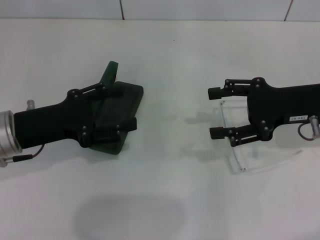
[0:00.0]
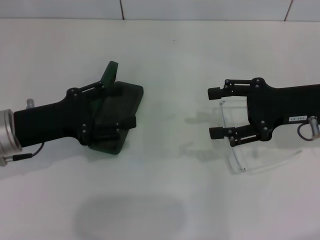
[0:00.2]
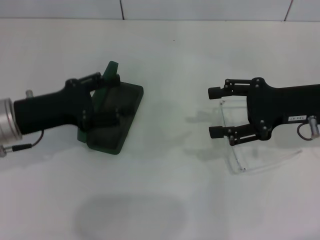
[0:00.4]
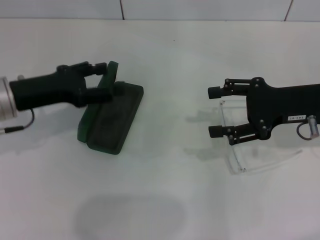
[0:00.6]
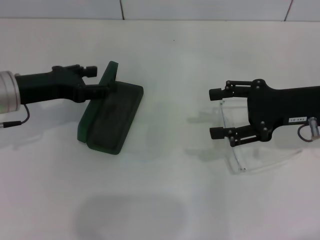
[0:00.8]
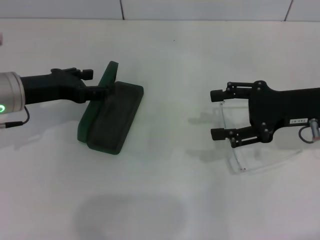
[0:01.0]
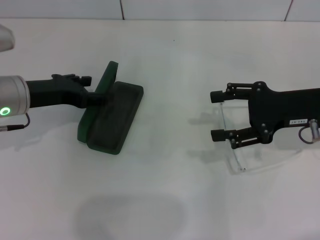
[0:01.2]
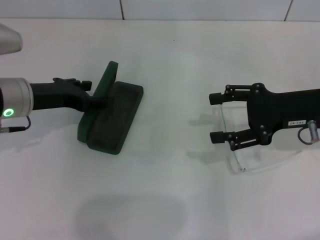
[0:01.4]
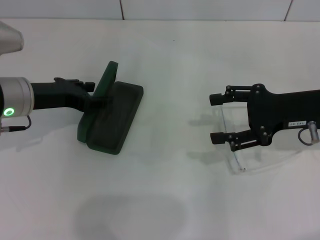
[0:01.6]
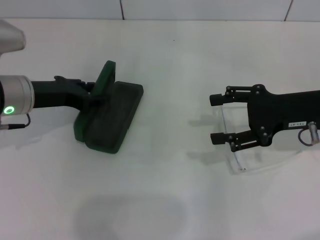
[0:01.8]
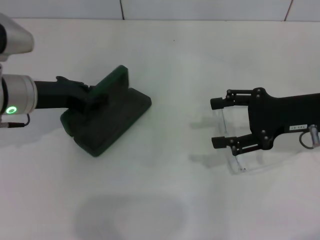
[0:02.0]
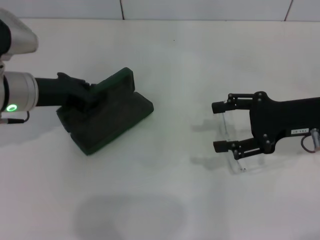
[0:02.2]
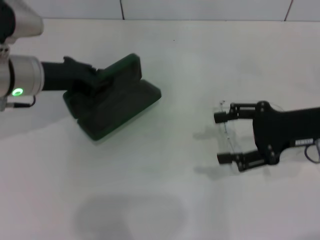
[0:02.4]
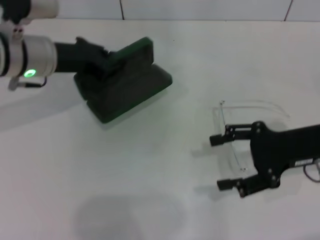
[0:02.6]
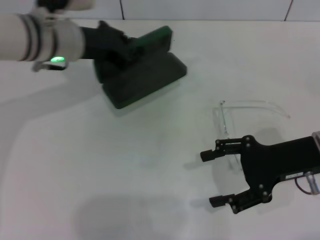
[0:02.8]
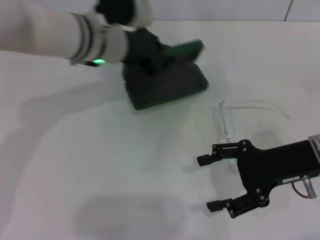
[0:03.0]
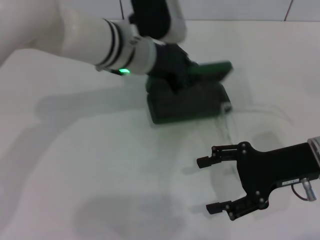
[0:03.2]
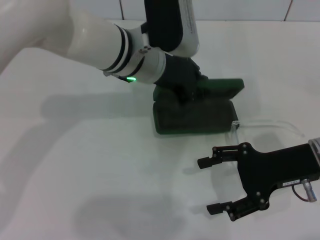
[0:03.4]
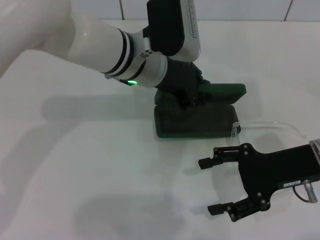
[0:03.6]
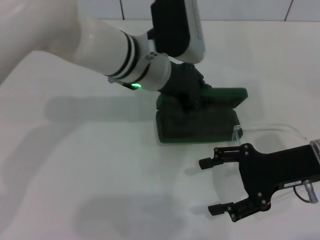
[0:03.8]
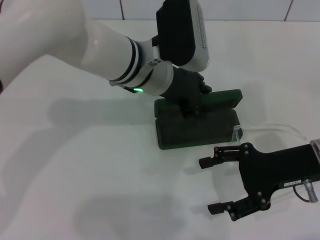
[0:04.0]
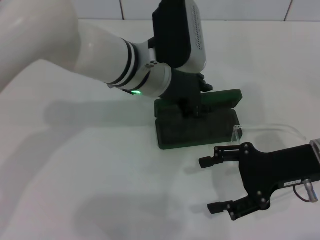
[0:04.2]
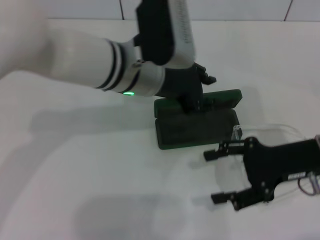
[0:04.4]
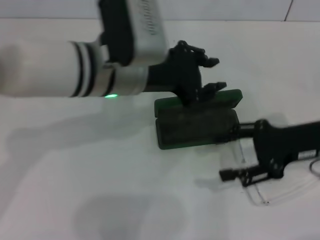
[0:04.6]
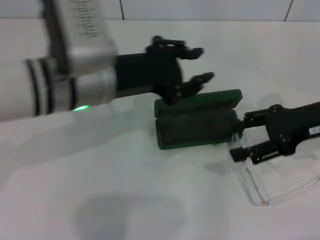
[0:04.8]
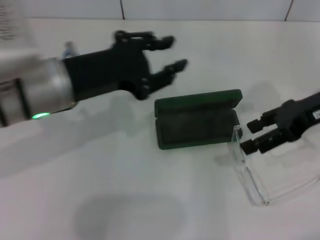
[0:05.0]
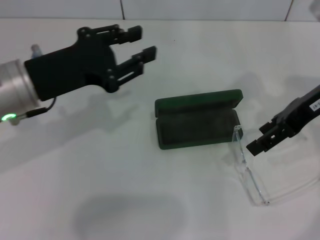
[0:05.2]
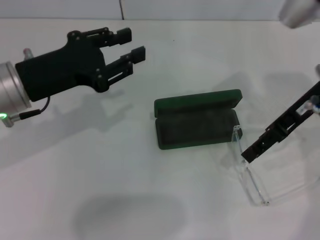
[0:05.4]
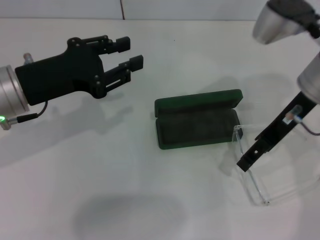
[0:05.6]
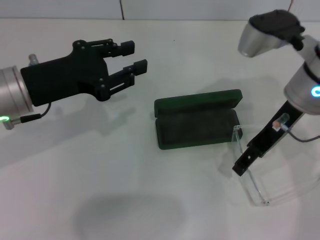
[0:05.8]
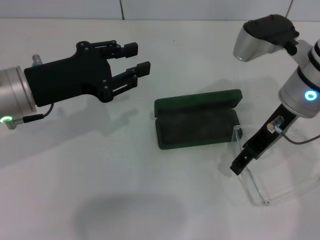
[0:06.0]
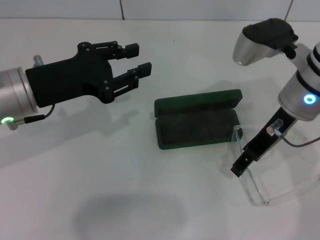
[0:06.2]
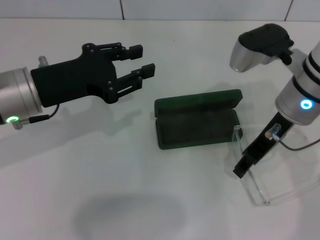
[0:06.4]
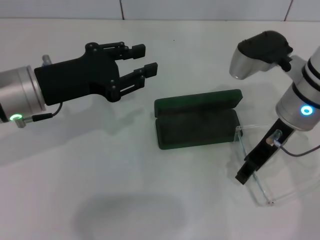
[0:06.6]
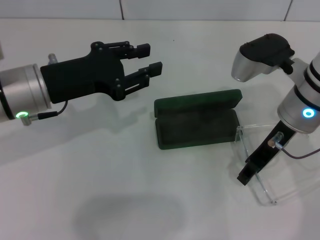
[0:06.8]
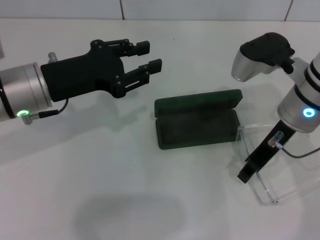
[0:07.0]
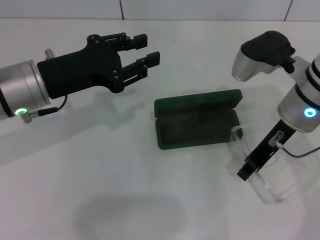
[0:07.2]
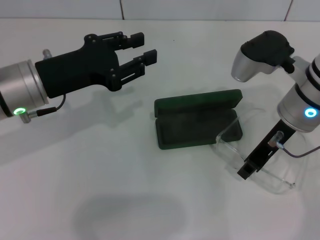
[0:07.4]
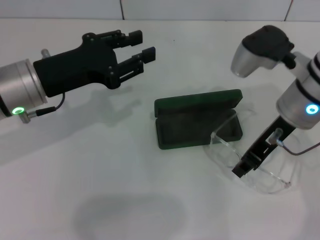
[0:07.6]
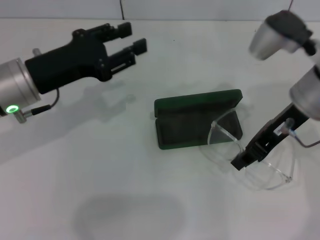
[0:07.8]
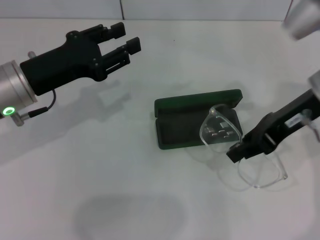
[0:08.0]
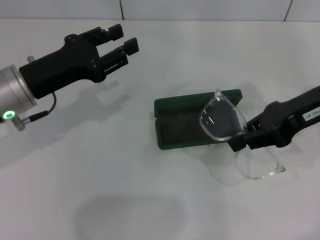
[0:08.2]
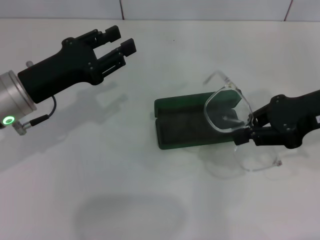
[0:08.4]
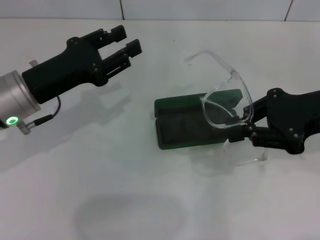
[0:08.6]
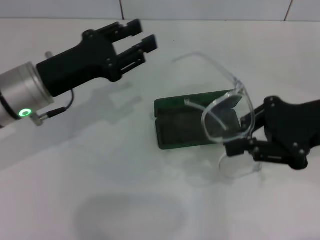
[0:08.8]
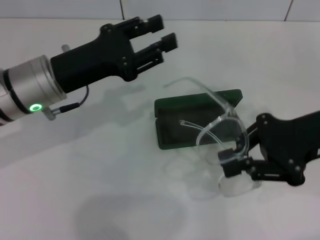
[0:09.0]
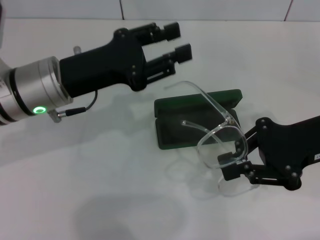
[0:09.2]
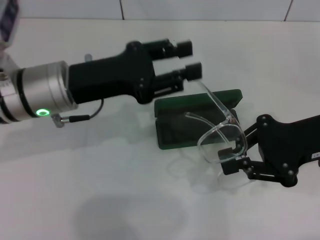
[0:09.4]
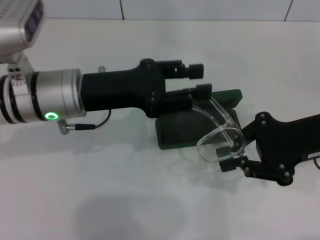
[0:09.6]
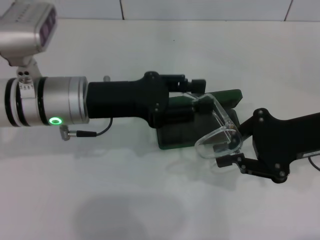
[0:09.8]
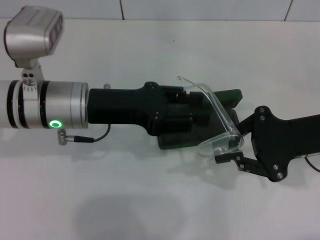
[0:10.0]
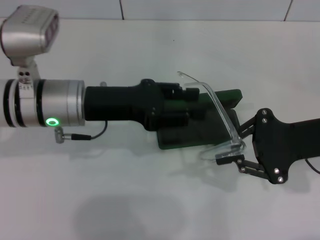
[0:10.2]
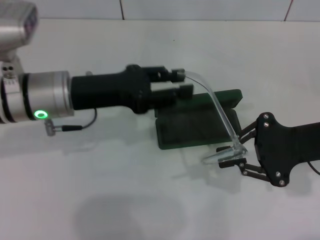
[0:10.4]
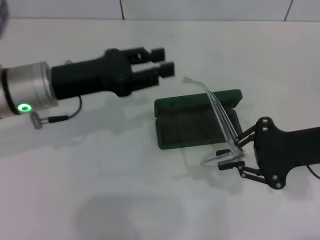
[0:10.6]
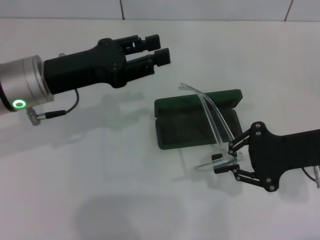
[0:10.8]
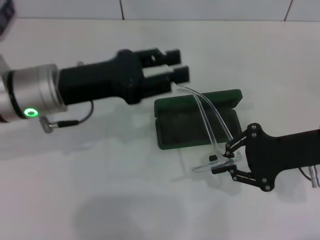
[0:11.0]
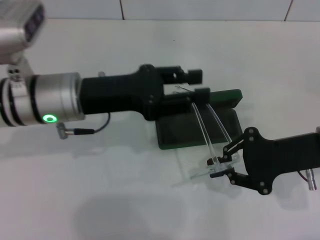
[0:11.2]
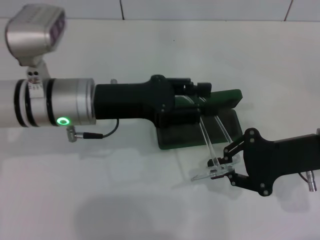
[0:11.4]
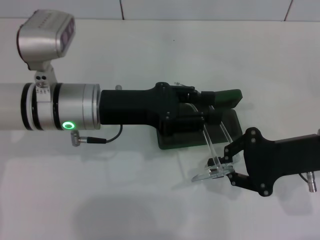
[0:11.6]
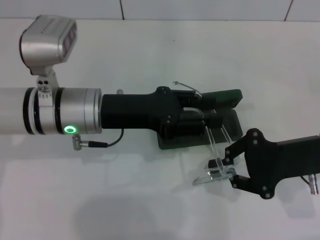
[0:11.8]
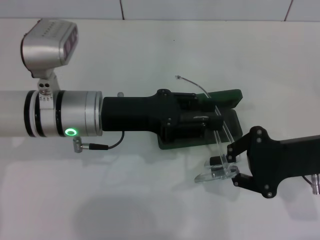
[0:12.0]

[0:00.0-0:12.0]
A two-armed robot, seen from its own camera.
Step, 0:00.0 to 0:01.8: Grab the glasses case with your left hand.
Step, 0:02.0 to 0:04.6: Place the glasses case in the center of the table with your left hand.
Step, 0:04.8 to 0:07.4: Grab the eyeglass frame with your right hand.
0:00.0 to 0:01.6: The left gripper is displaced forward by approximately 5 cm.
0:01.6 to 0:03.0: The right gripper changes place by approximately 5 cm; the left gripper heads to the right and forward, covering roughly 15 cm, and closes.
0:03.0 to 0:04.4: The left gripper is displaced backward by approximately 5 cm.
0:04.4 to 0:06.0: The right gripper travels upward, to the left and forward by approximately 15 cm; the left gripper shifts about 15 cm to the left.
0:06.0 to 0:07.6: The right gripper closes its fingers.
0:07.6 to 0:09.0: The right gripper heads to the right, covering roughly 10 cm.

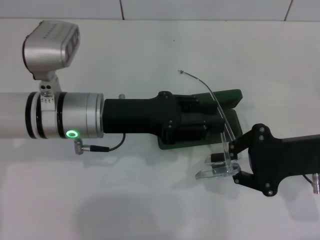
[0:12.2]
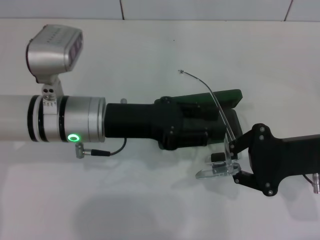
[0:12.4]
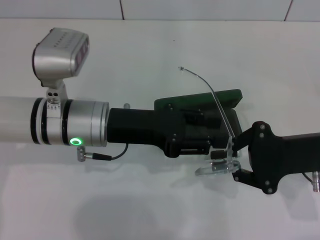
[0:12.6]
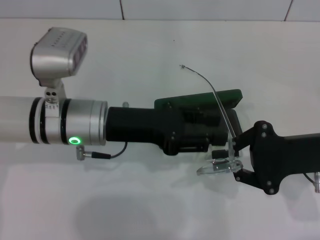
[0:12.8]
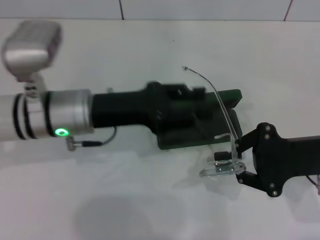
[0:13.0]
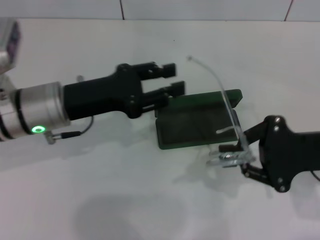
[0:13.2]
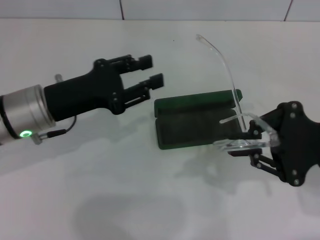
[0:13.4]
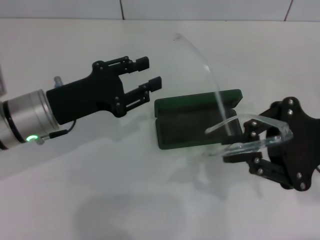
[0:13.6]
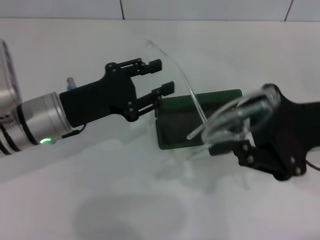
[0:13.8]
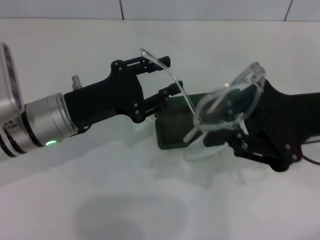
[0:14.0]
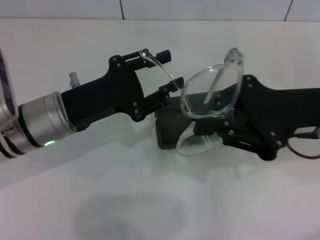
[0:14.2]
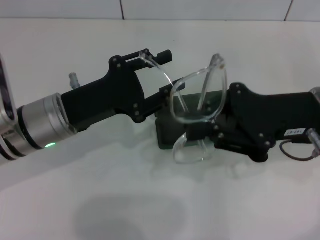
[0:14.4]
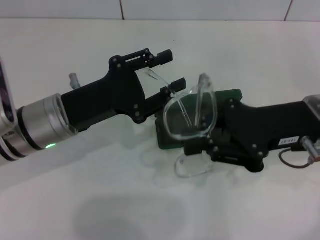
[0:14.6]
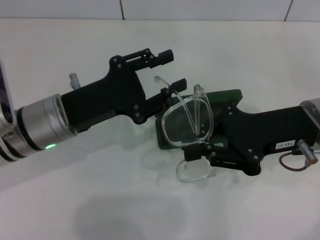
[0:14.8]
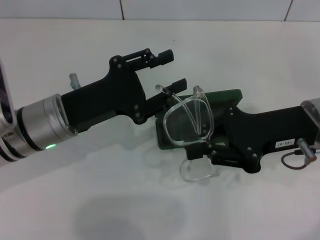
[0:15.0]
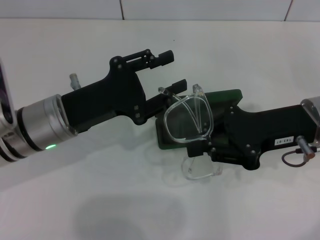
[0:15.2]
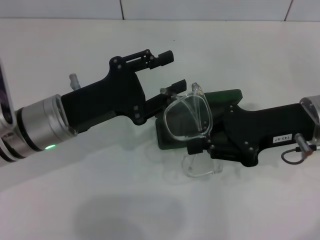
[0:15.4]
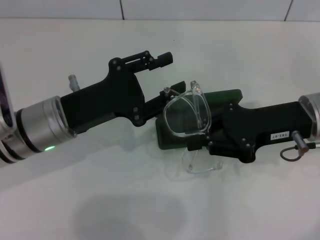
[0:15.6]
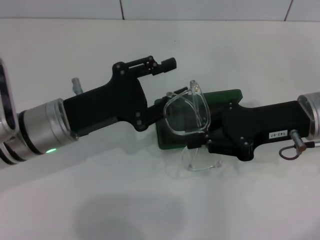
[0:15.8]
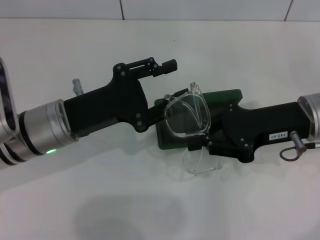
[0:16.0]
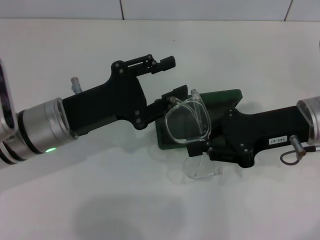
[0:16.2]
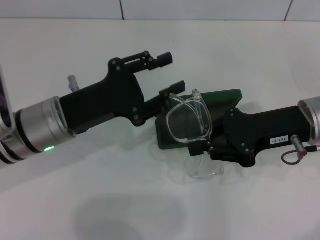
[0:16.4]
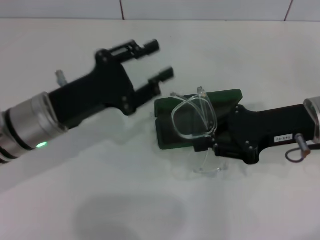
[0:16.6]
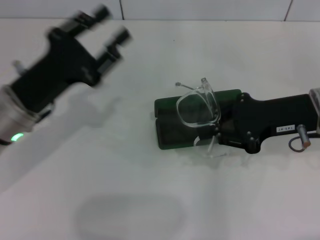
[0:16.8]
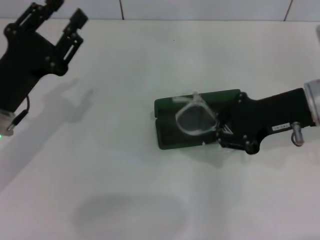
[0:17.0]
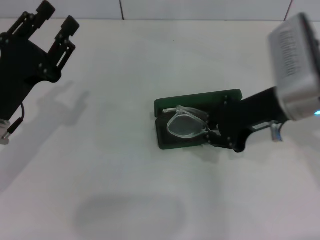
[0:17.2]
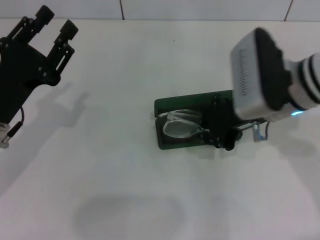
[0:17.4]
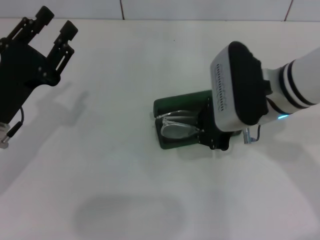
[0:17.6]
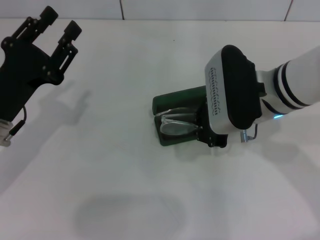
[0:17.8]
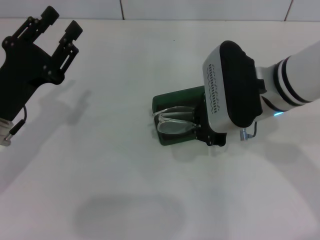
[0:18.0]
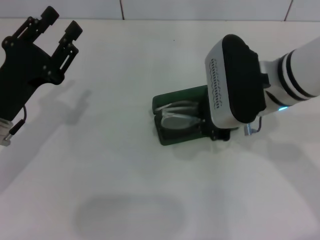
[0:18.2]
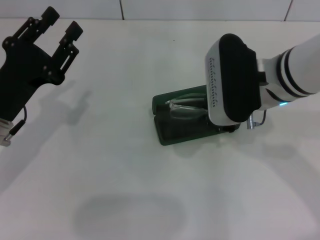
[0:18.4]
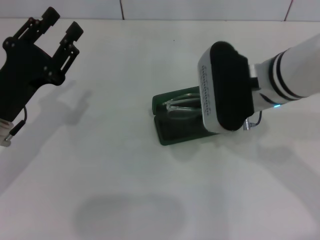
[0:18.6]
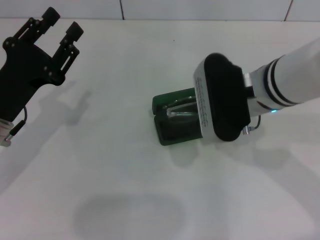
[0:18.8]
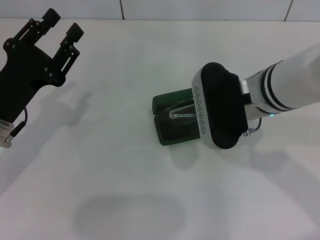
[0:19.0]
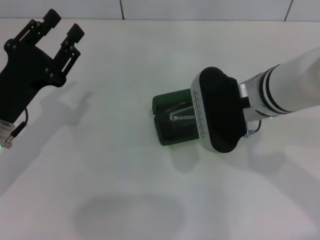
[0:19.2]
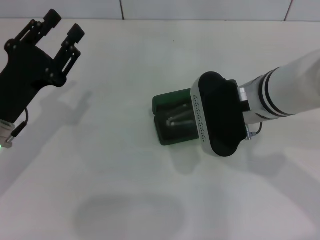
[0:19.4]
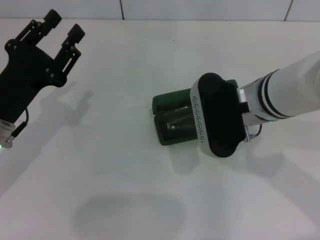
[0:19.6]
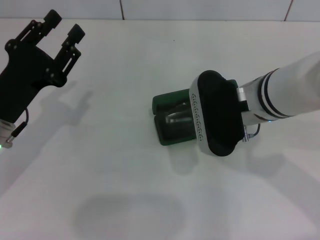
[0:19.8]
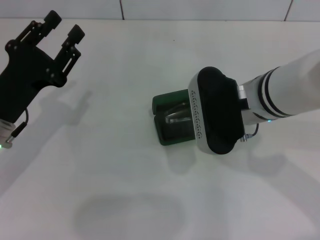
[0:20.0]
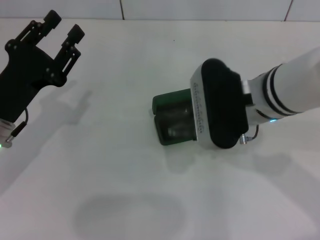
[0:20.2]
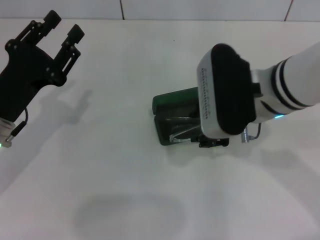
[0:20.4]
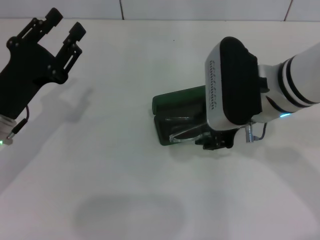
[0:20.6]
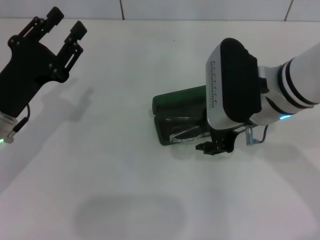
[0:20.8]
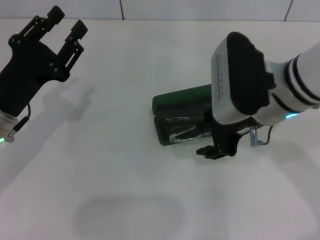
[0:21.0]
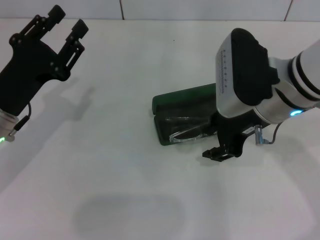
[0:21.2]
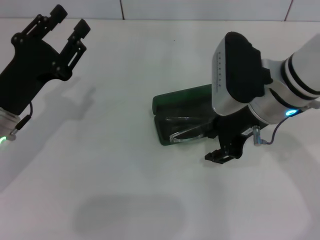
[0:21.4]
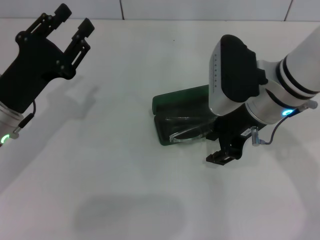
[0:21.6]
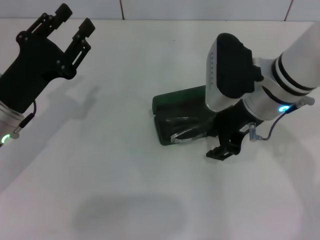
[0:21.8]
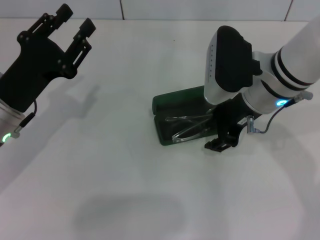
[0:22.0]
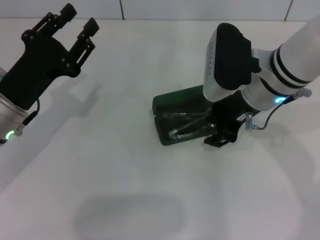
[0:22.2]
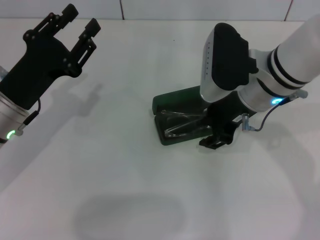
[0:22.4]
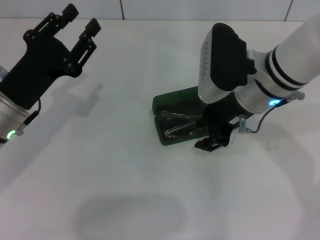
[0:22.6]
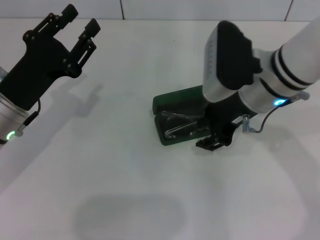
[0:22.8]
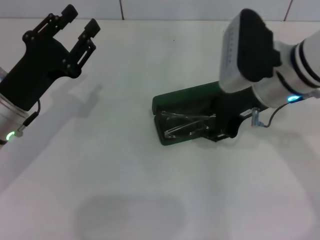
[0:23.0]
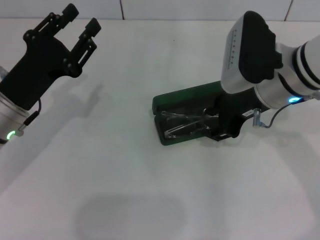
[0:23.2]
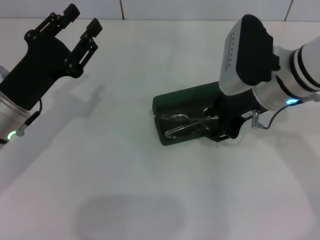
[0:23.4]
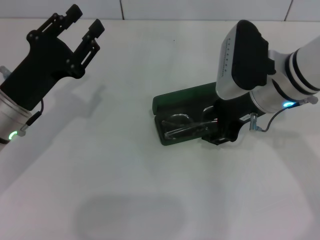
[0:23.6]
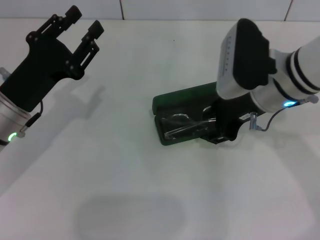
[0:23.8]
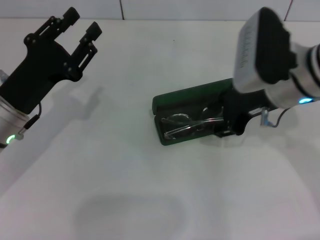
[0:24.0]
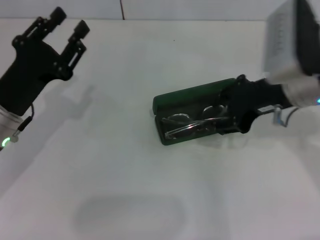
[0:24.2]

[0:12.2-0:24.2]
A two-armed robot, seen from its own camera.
Step, 0:12.2 to 0:16.0: Fold the frame with your left hand.
Step, 0:16.2 to 0:22.8: Put the glasses into the case with your right hand.
0:12.2 to 0:13.8: The right gripper travels upward by approximately 5 cm; the left gripper moves to the left, about 5 cm.
0:15.2 to 0:16.6: There are only small adjustments of the grippers.
0:16.6 to 0:18.2: The right gripper goes about 10 cm to the left. Meanwhile the left gripper heads to the left, covering about 5 cm.
0:18.2 to 0:19.8: The grippers move only a little.
0:21.2 to 0:22.6: The grippers stay close to where they were, moving slightly.
0:22.6 to 0:24.2: The right gripper is displaced to the right by roughly 5 cm.
